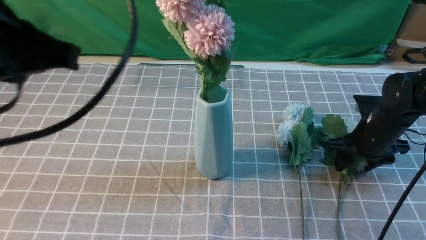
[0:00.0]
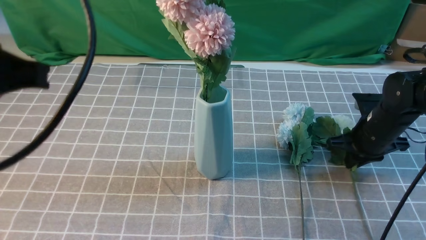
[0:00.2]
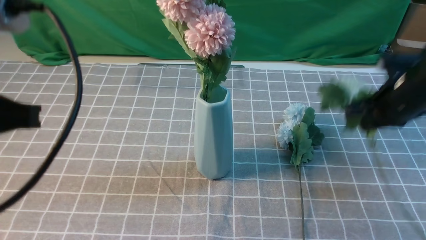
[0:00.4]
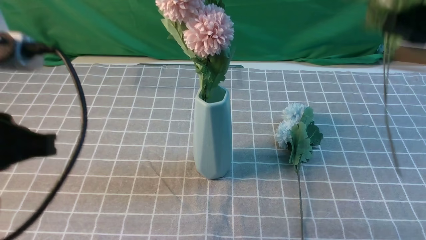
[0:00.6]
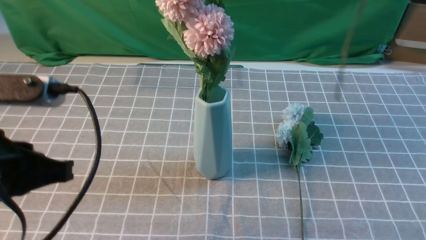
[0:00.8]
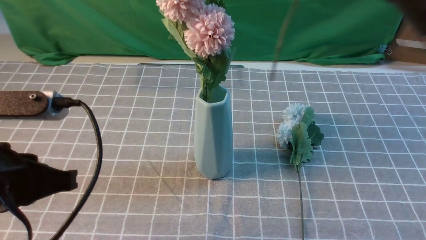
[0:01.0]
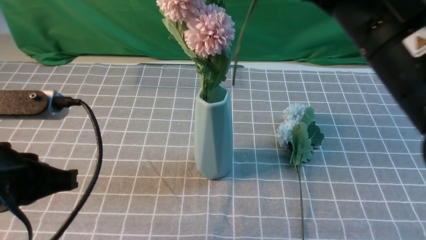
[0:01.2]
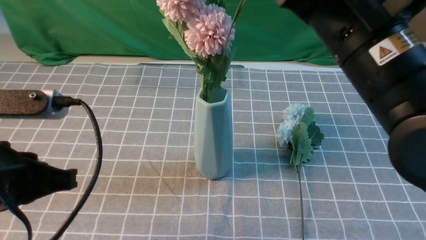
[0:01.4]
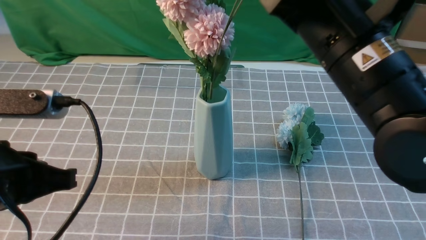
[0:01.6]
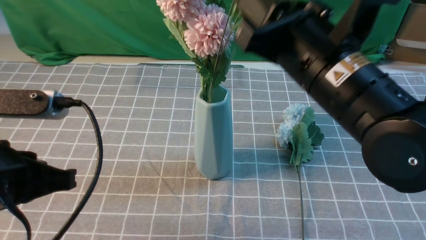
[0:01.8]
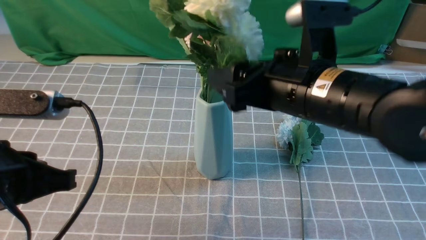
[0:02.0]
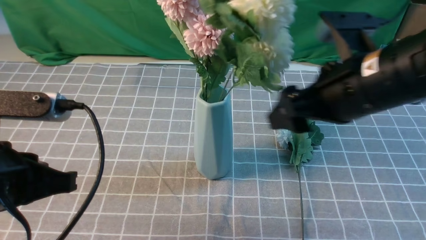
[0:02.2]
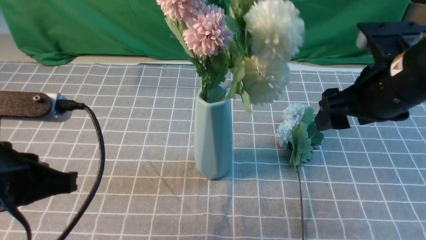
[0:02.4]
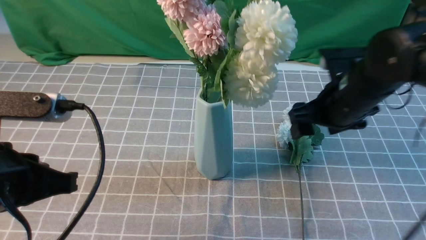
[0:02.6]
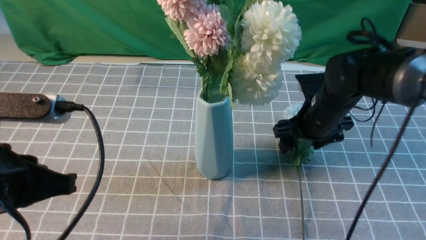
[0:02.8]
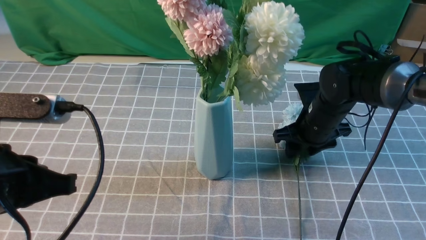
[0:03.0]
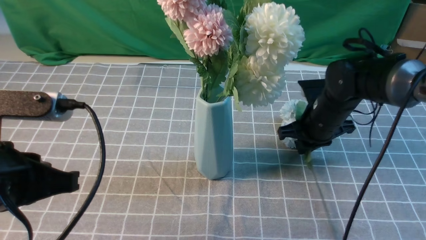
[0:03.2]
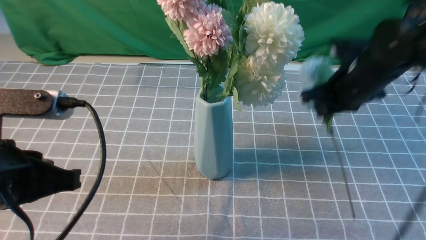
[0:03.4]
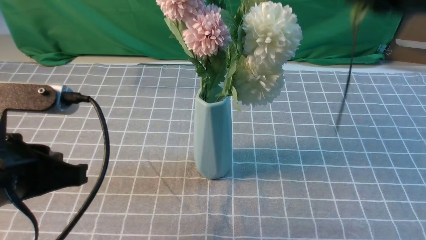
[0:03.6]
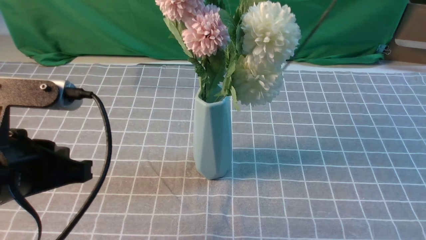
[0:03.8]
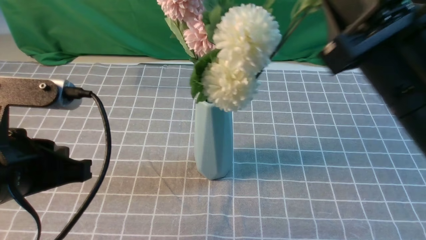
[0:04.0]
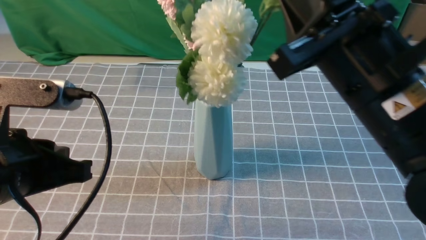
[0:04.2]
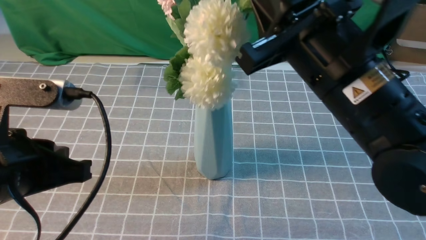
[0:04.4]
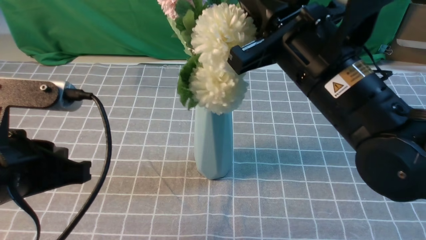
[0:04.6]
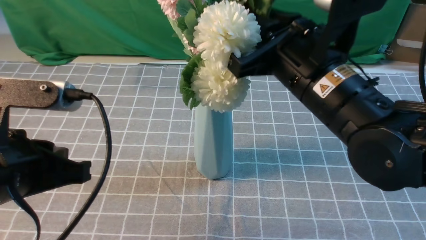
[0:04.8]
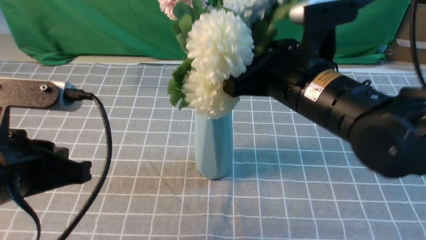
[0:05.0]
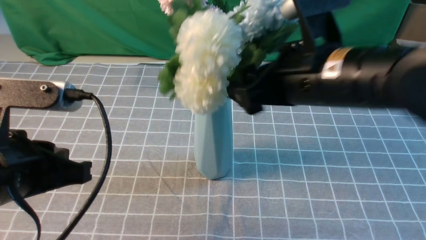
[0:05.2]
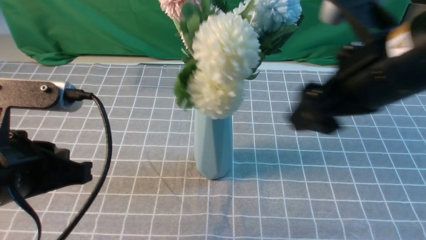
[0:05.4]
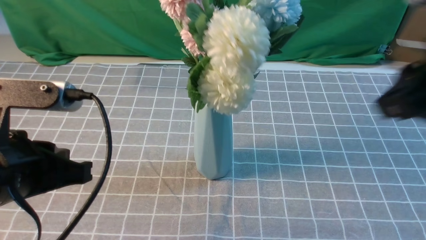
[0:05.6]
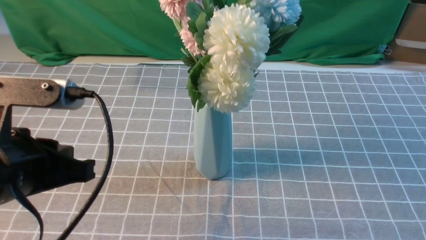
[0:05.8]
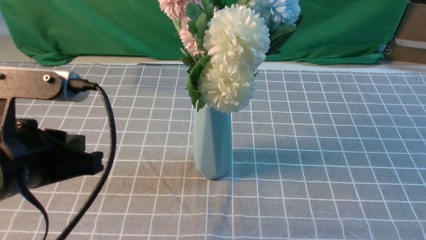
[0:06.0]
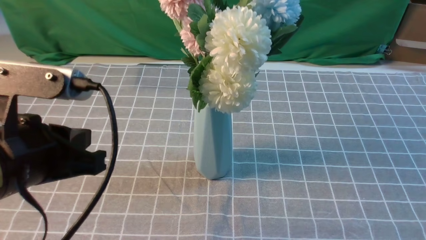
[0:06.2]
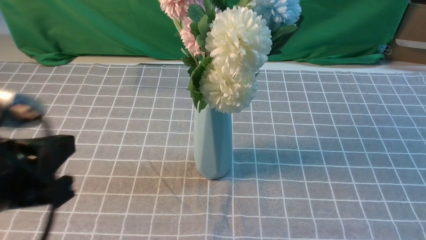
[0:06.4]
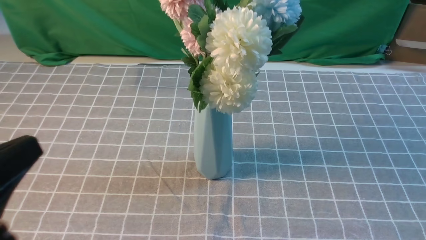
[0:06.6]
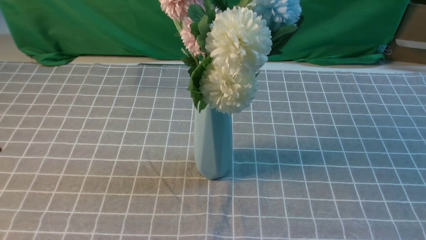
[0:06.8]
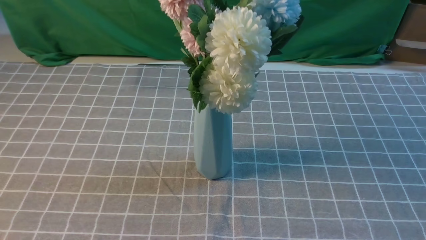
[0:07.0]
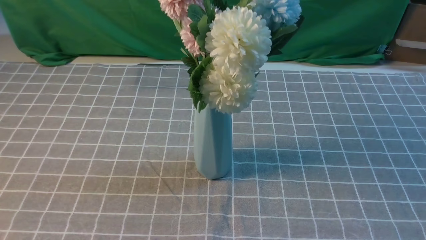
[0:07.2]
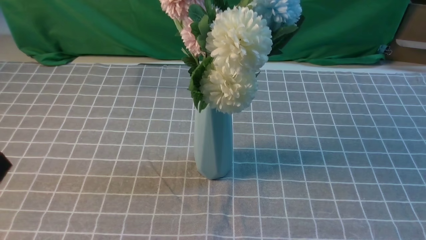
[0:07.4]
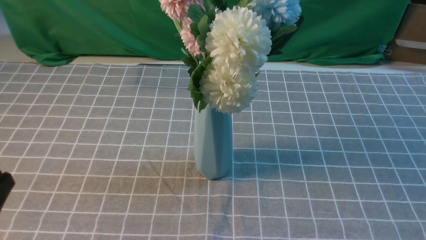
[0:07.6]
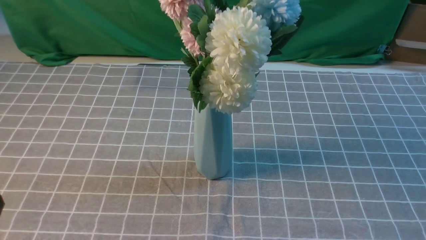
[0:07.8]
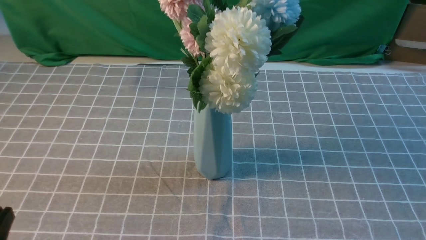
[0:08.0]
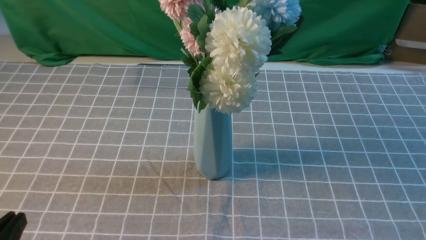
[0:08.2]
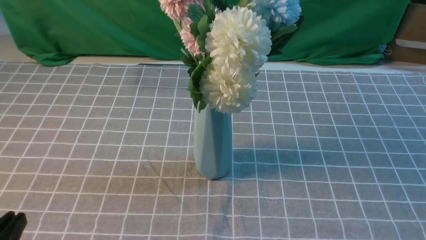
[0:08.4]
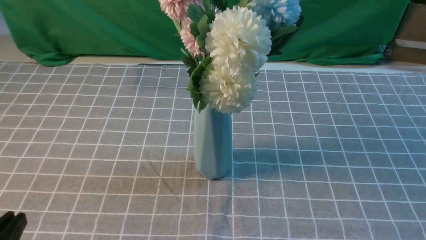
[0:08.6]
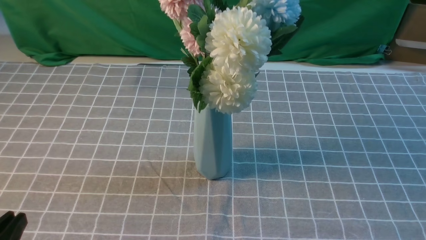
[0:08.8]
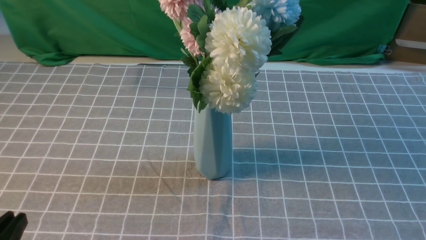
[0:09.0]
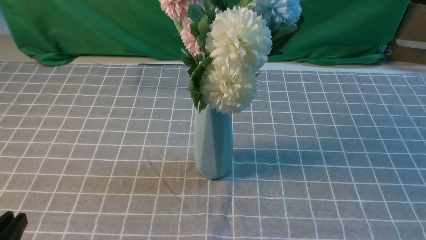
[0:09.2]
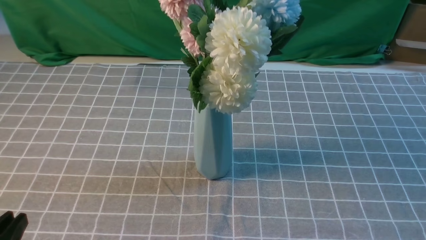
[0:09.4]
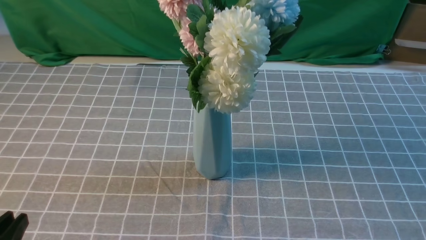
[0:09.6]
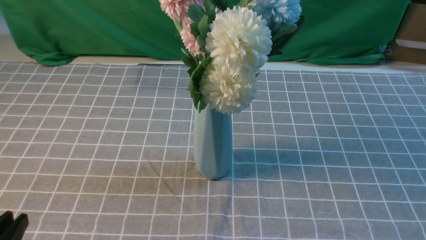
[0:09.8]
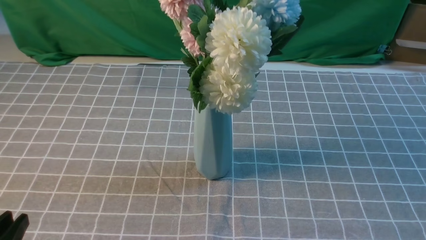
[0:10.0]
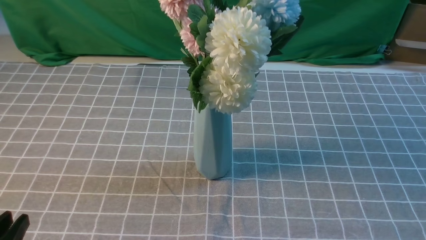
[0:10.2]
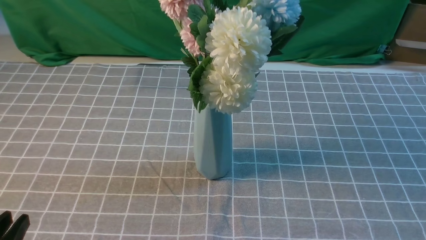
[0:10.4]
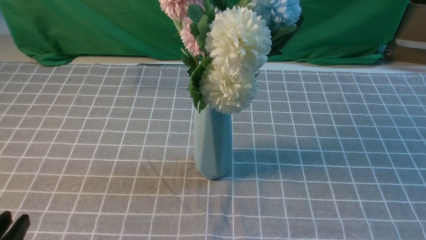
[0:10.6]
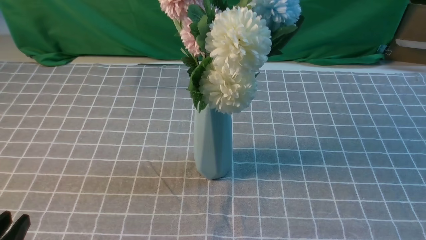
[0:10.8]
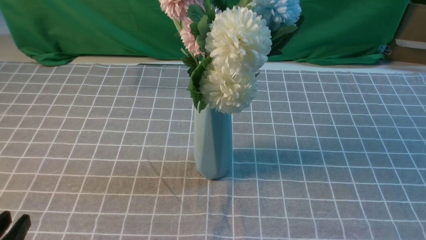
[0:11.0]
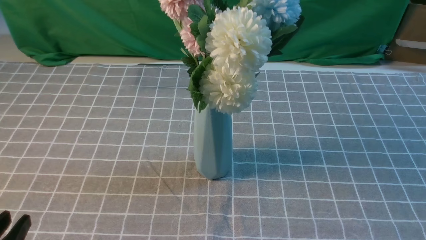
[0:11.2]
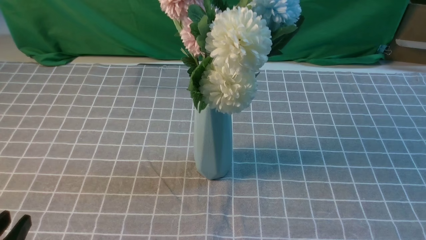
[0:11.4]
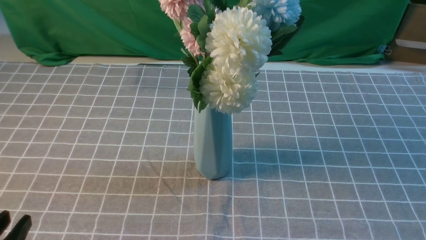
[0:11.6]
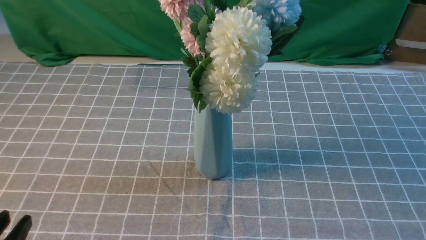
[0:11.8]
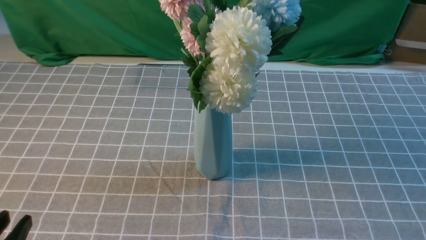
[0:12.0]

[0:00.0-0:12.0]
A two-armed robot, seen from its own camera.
Task of the whole recording: insert the flowers into the vase on the table with the grey tablecloth.
Step, 0:00.4 to 0:02.0: use the right arm to insert the flowers into the vase.
Step, 0:02.2 to 0:03.2: use the right arm to grab a bunch of fresh flowers.
Step, 0:03.4 to 0:05.2: use the right arm to insert the flowers into the vase.
0:00.0 to 0:01.6: The left gripper moves downward, about 10 cm. Meanwhile the right gripper is displaced upward, to the left and backward by some 30 cm, and closes.
0:01.6 to 0:03.0: The right gripper travels downward and forward by some 25 cm, and opens its fingers.
0:03.0 to 0:04.4: The right gripper is displaced upward and backward by about 25 cm, and closes its fingers.
0:04.4 to 0:06.0: The right gripper heads backward and to the right, covering approximately 25 cm, and opens, then closes once more.
0:06.0 to 0:07.6: The left gripper travels backward, to the left and downward by roughly 15 cm, while the right gripper travels downward by some 5 cm.
0:07.6 to 0:09.0: The left gripper shifts about 5 cm downward.
0:10.4 to 0:12.0: The two grippers keep their place.
